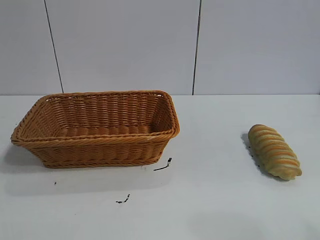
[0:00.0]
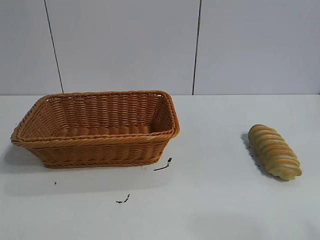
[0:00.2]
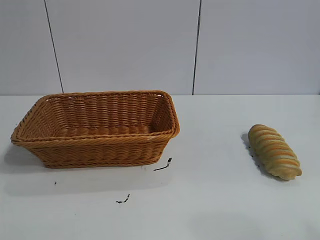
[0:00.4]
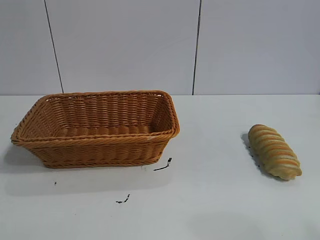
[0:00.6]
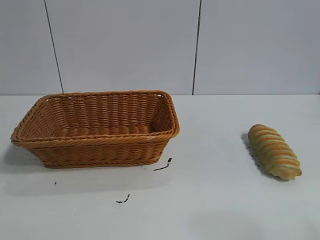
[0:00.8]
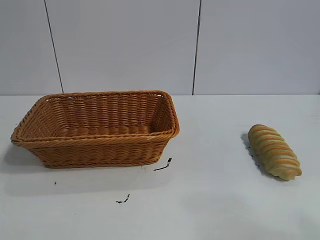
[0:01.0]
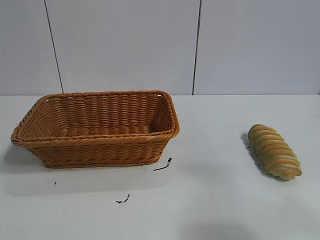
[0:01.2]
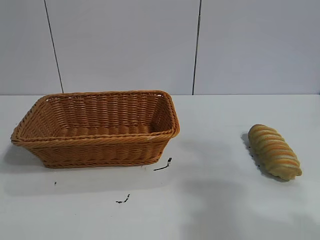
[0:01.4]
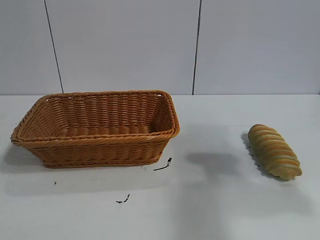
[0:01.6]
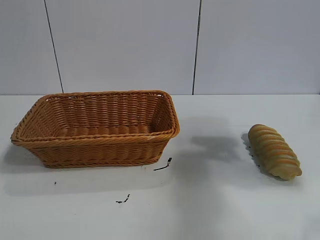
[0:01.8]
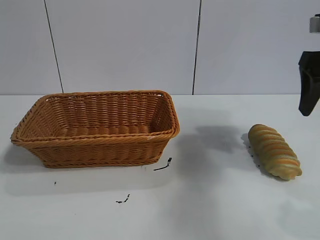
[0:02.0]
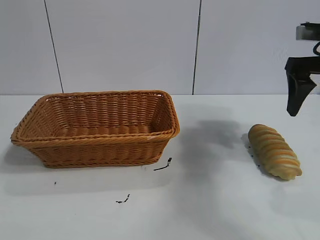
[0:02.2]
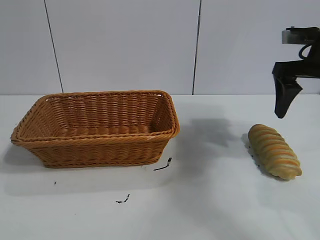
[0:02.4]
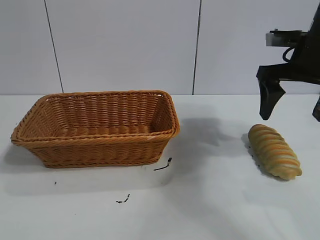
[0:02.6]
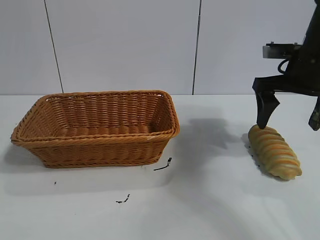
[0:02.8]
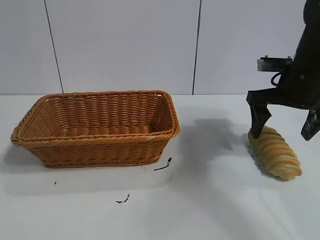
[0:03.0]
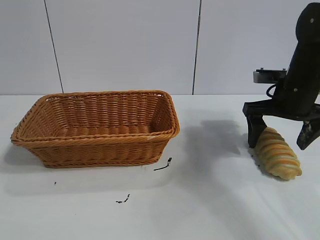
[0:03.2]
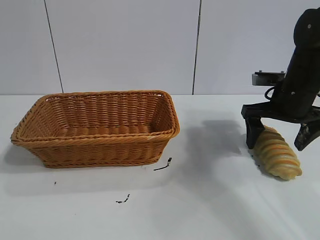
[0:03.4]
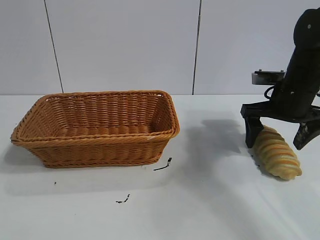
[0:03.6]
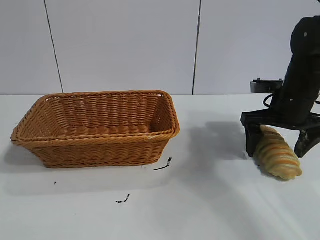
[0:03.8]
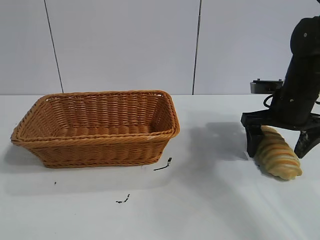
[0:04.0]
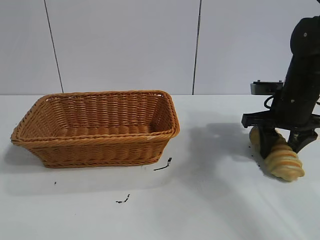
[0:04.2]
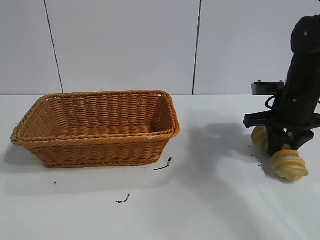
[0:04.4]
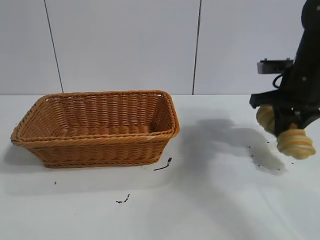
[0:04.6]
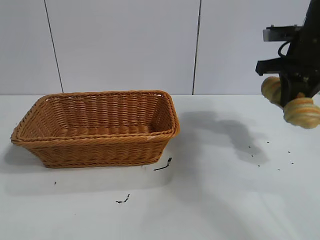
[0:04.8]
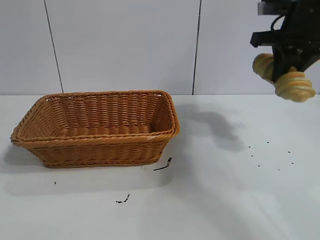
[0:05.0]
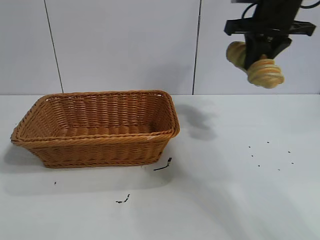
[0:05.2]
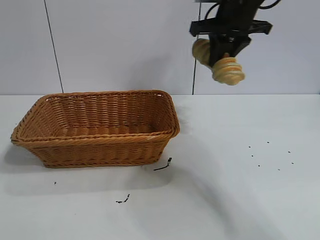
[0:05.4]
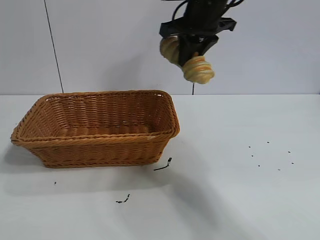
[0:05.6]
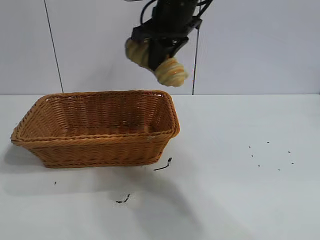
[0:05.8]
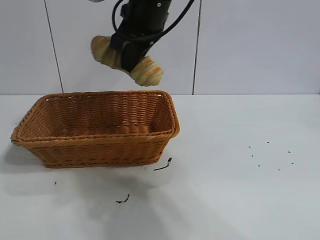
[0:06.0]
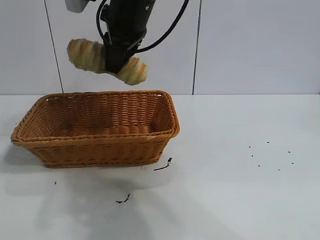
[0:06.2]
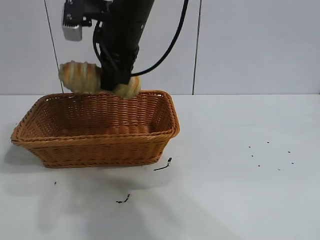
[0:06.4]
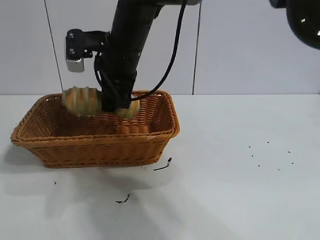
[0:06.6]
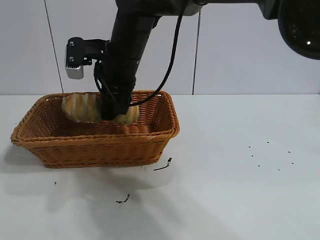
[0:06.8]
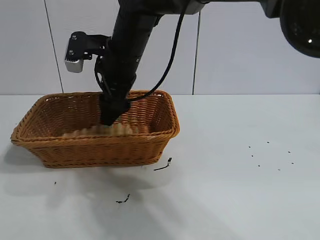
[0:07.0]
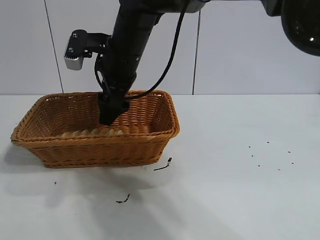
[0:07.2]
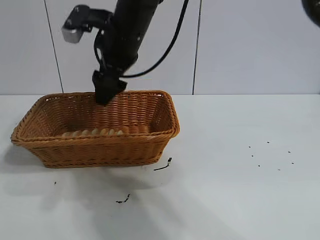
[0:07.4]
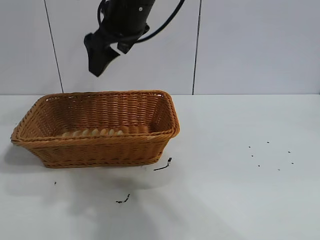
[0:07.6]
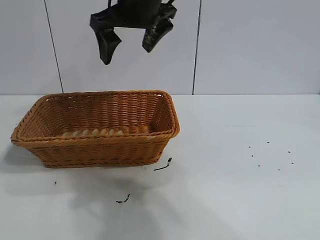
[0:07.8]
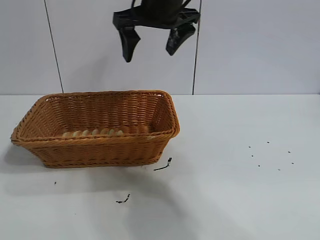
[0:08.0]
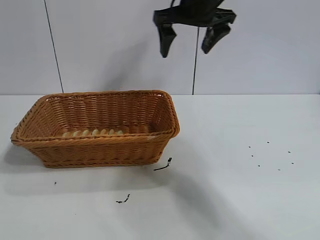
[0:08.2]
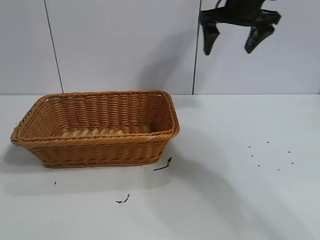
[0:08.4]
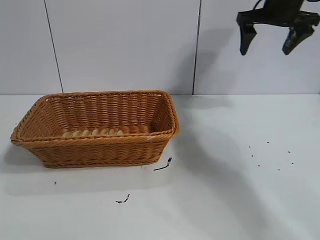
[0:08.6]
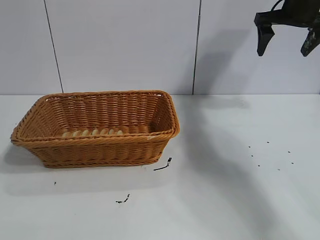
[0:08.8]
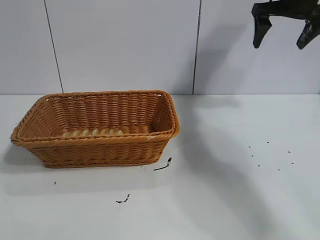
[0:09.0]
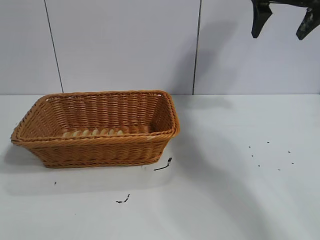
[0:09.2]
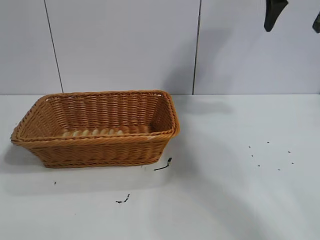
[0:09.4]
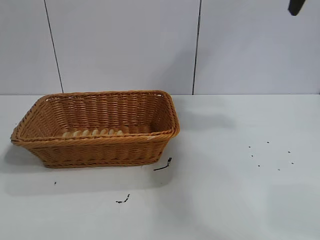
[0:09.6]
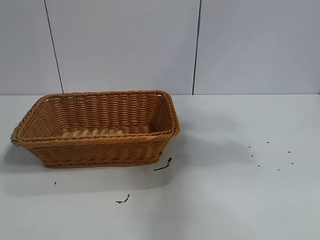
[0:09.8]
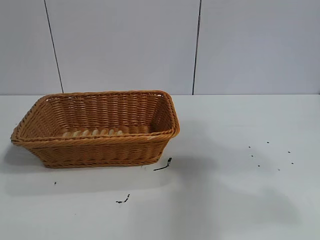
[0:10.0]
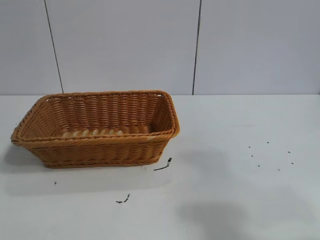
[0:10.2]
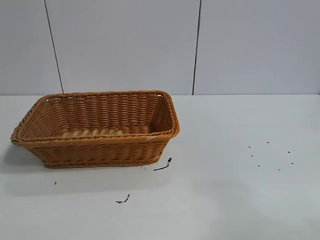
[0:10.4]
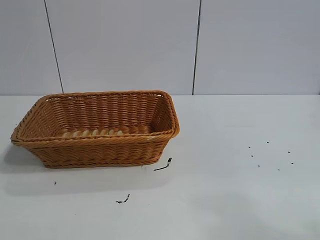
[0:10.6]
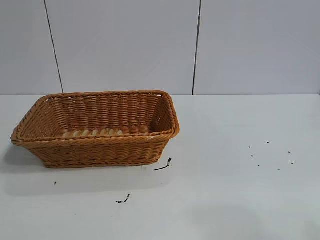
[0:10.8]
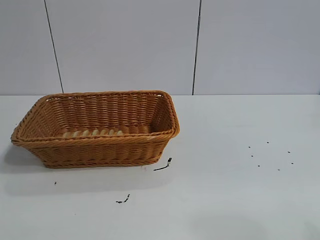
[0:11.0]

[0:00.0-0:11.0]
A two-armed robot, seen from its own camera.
Task of the whole recording: pick up the long bread and put it into the basket.
Step, 0:02.0 to 0:04.4: Grasp the long bread with right gripper.
Step, 0:04.6 to 0:07.2: Place the long bread in the basket with right gripper.
